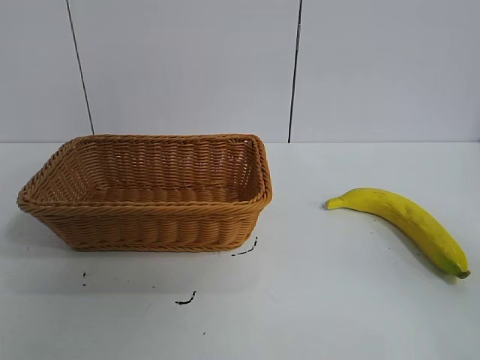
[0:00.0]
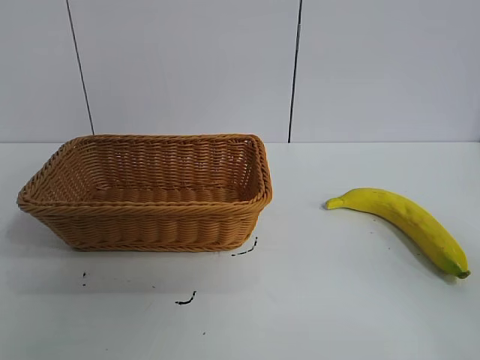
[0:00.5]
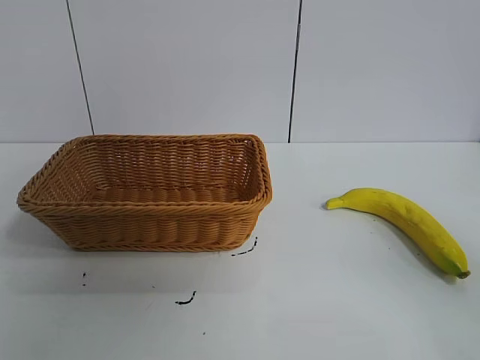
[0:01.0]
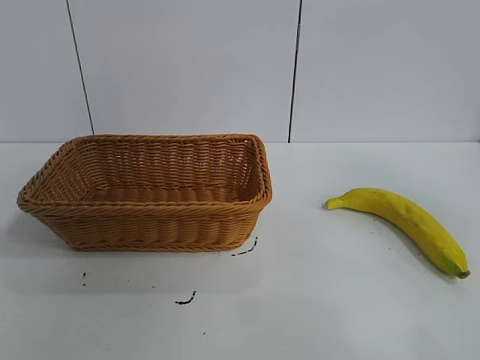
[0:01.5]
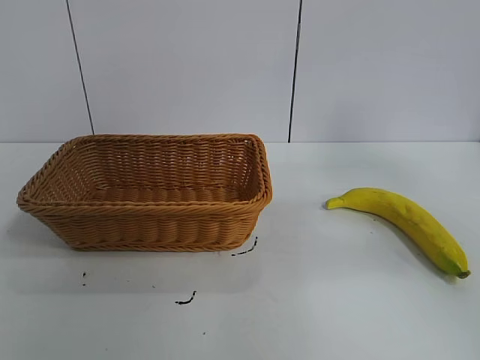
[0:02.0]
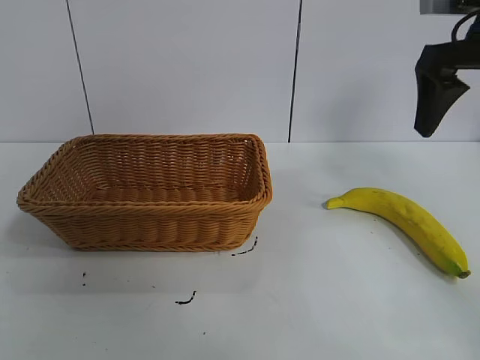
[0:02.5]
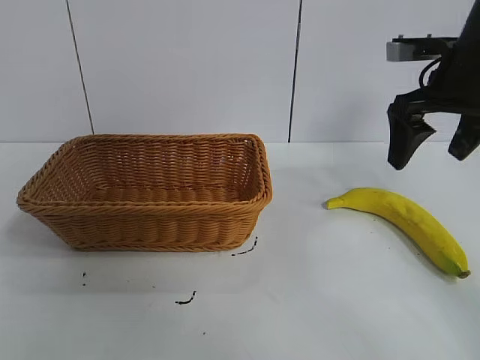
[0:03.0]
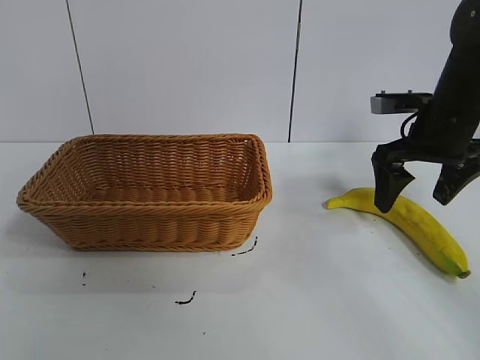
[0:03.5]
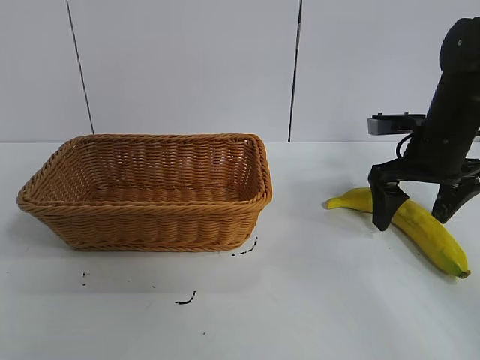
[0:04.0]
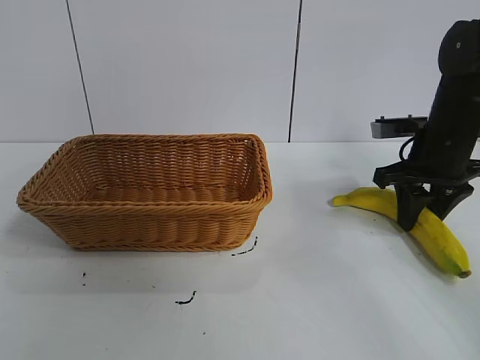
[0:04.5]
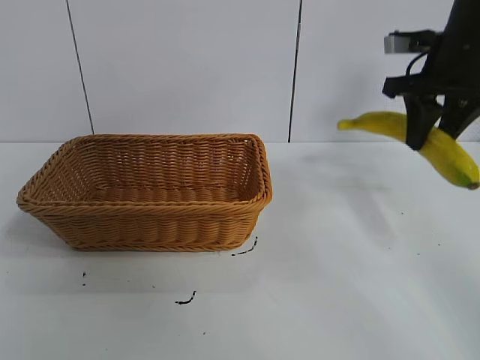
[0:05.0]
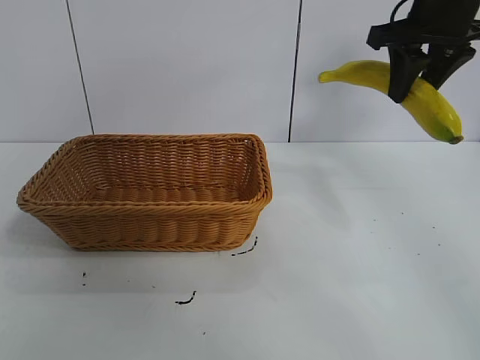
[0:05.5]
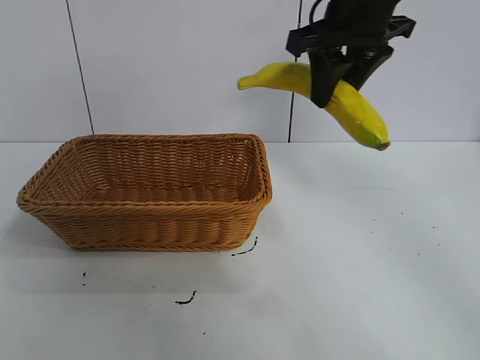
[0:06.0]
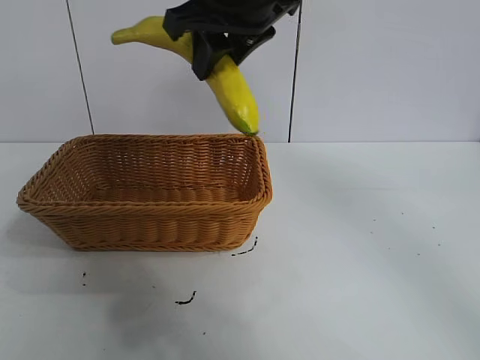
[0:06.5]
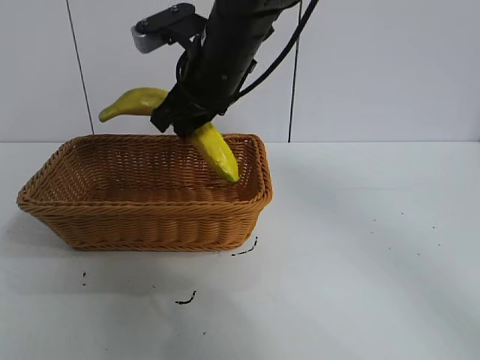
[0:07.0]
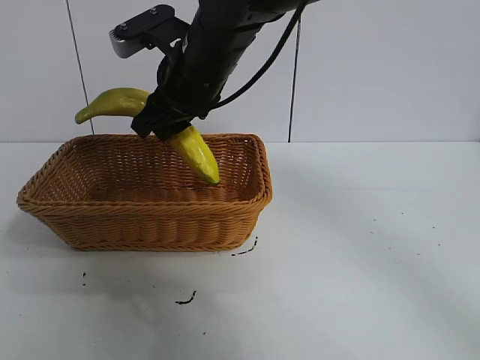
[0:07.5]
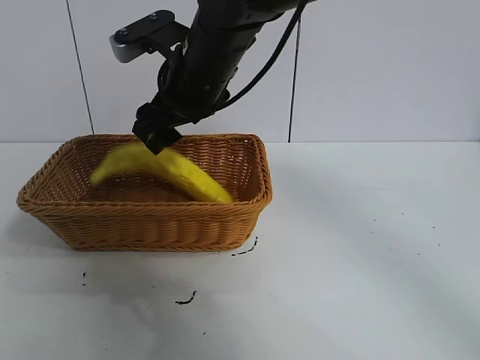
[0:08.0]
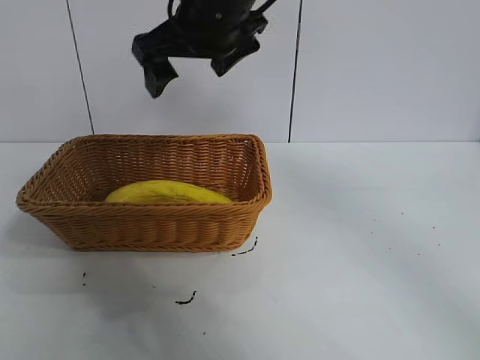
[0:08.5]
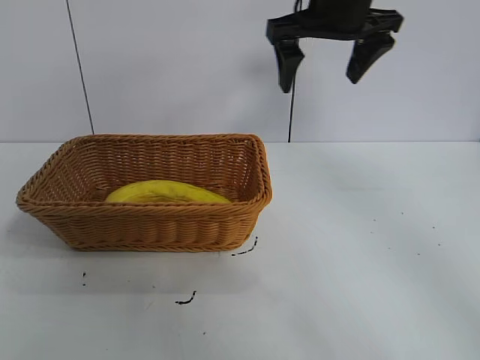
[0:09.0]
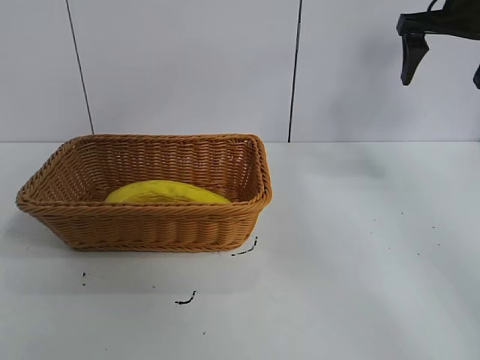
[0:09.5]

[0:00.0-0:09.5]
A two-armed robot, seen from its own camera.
Task of the whole recording: pick up the banana and put it into the basket.
Step, 0:02.5 to 0:04.5: Grasp the banana with right gripper.
Step, 0:05.0 to 0:08.0: Place the banana in the basket with right gripper.
